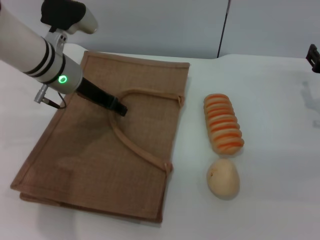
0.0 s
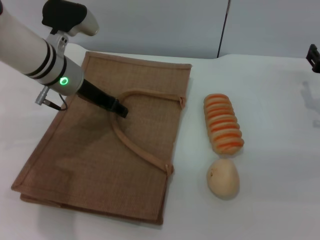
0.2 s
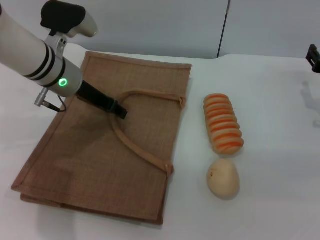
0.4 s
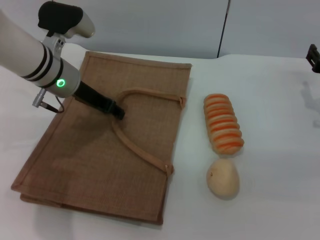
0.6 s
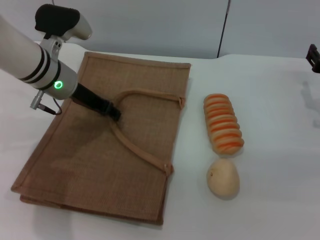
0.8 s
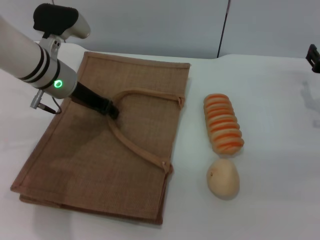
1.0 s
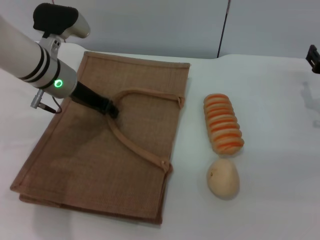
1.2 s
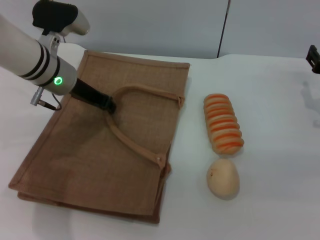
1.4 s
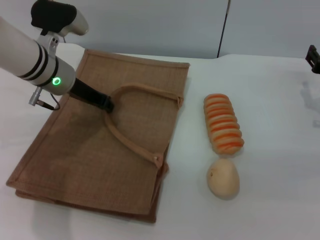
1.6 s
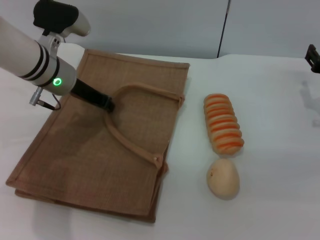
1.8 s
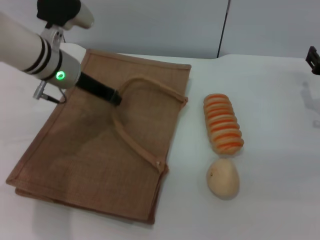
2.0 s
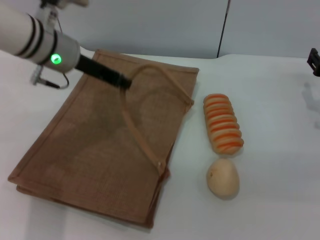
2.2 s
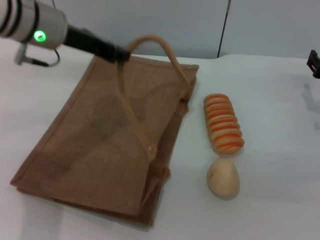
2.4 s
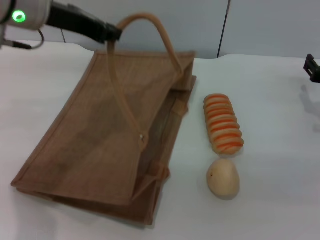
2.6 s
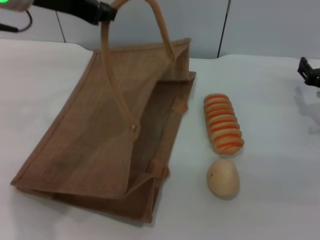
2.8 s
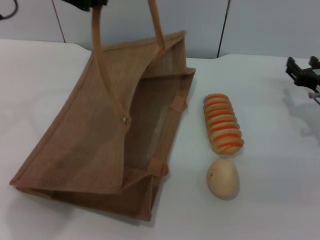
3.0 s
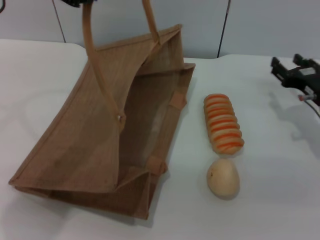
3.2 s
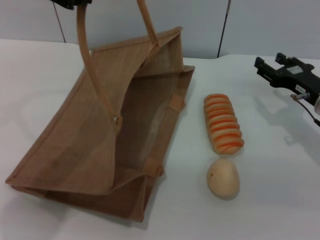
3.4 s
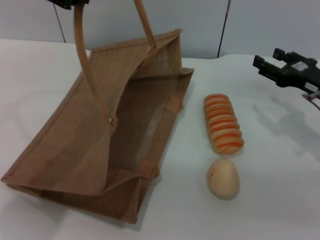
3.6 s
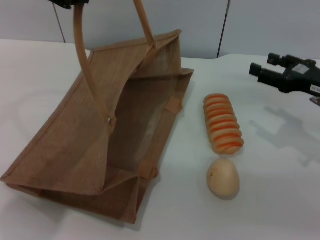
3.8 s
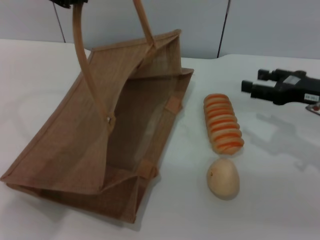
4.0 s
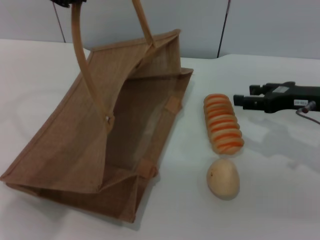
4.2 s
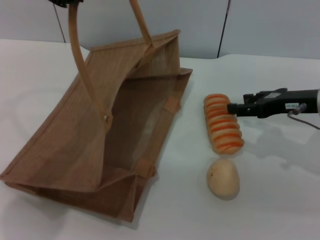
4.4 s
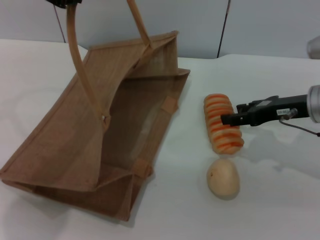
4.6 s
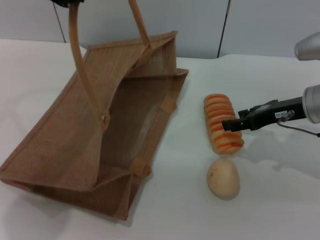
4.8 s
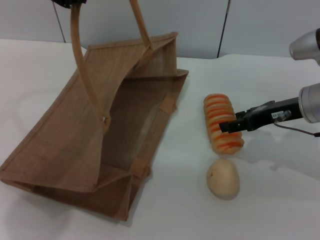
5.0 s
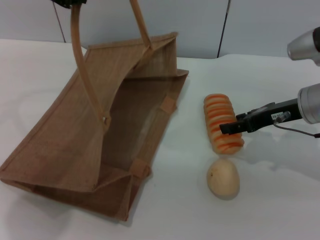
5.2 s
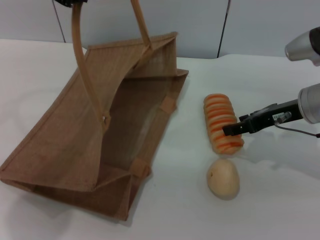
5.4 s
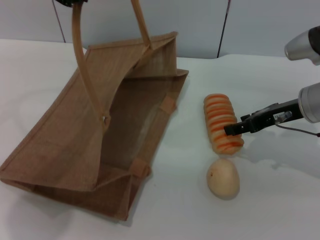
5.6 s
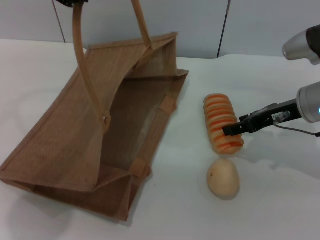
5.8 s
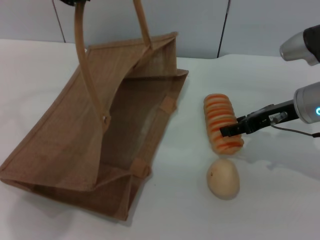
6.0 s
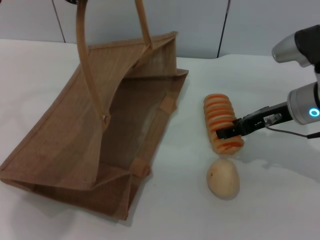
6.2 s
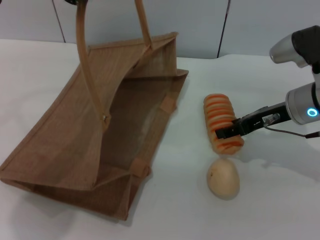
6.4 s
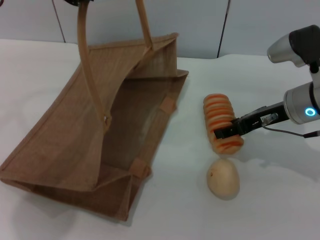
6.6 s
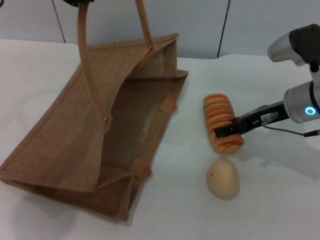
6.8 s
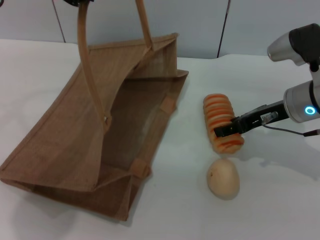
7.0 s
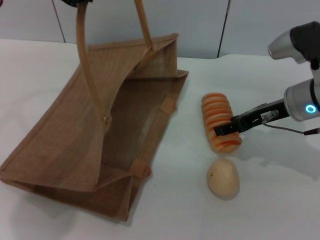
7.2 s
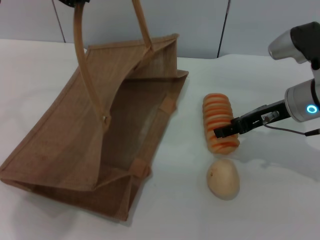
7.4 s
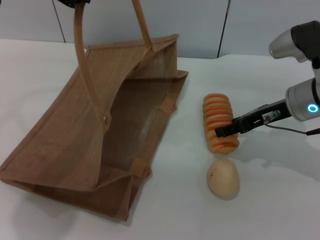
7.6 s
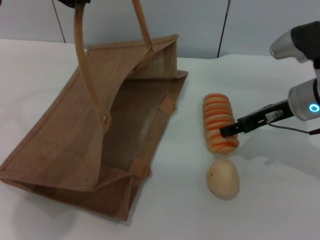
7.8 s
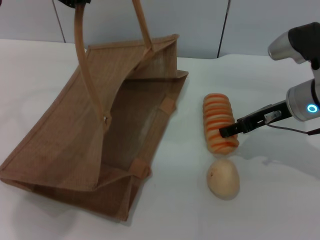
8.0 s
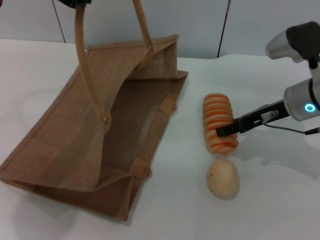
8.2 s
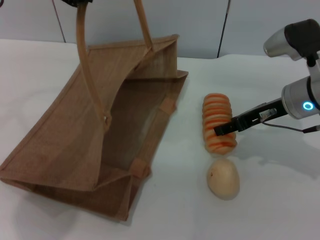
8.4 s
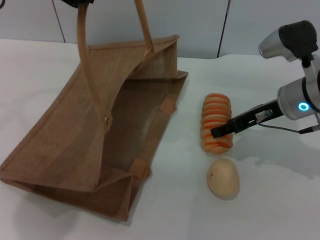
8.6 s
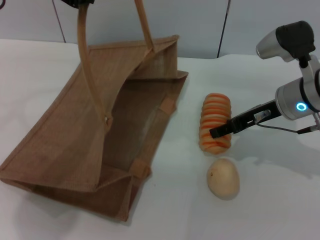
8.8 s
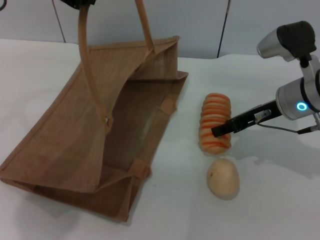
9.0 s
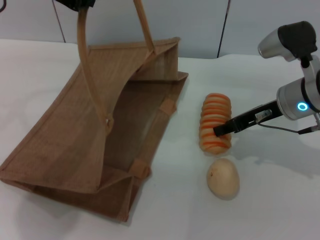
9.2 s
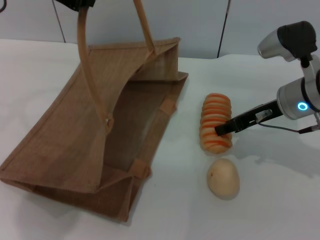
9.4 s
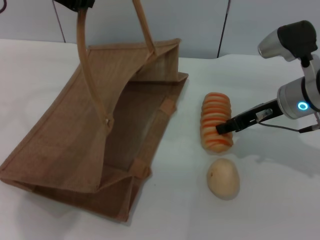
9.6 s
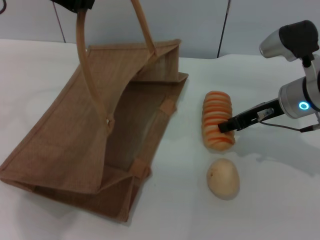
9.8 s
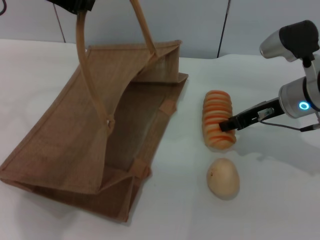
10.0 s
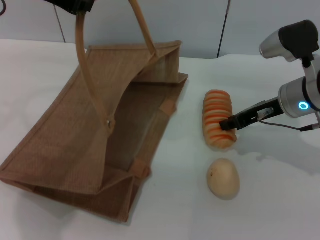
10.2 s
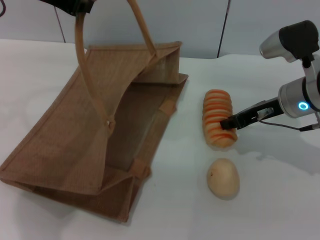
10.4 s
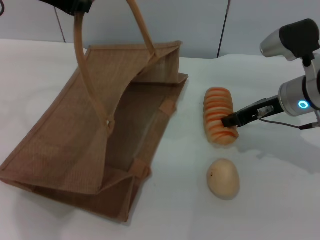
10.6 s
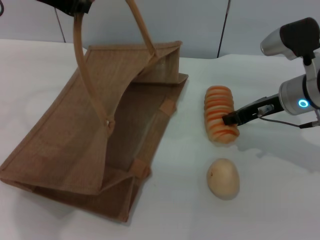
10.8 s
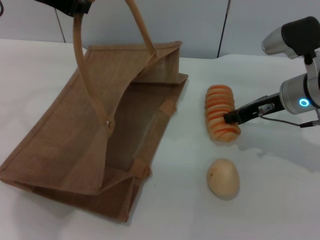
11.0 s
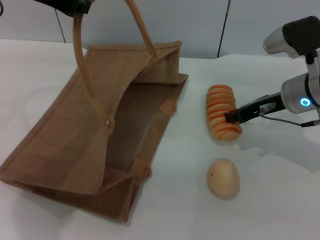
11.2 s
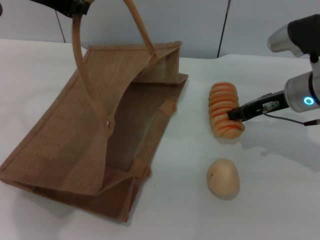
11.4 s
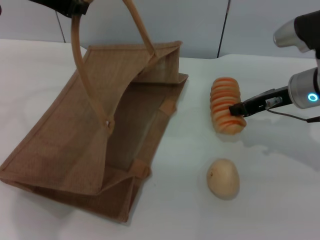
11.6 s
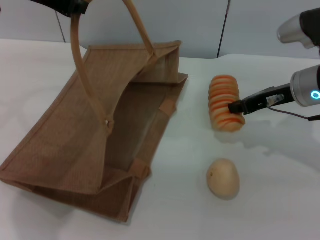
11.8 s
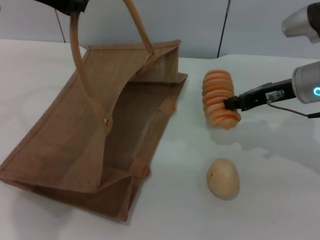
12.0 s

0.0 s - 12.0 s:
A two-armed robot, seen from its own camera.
Task of the whole recording: pick up the bread and egg yolk pastry from the table and place it in the brown handbag.
Step, 0.0 s - 2.4 s: Lift the woven bag with the left gripper to open it.
0.0 s - 1.6 s: The left gripper closes its fingers.
1.6 s - 3.0 s: The left gripper goes about 20 cm upward and backward.
3.0 s - 4.4 s: The right gripper is displaced upward by approximately 5 cm.
4.4 s - 9.0 s: The grippers make only small movements.
9.0 s - 10.4 s: The right gripper closes its fingers.
10.4 s - 12.0 s: The grippers move only a little.

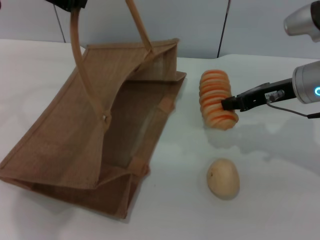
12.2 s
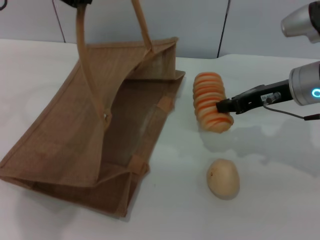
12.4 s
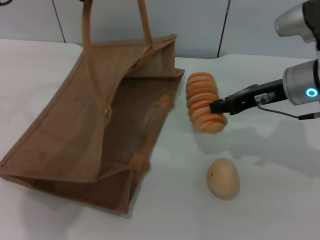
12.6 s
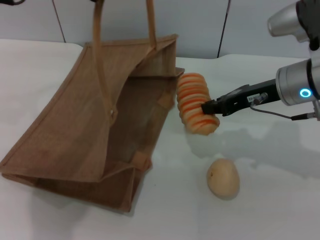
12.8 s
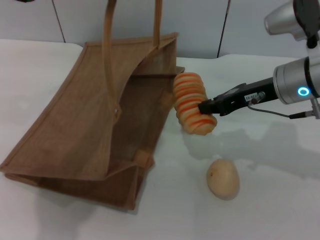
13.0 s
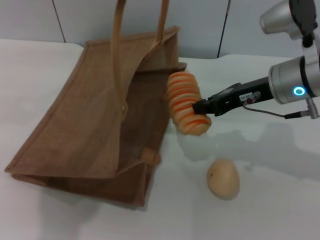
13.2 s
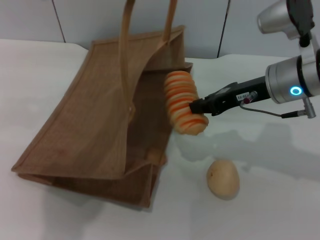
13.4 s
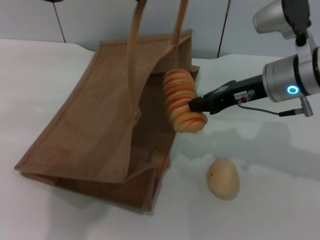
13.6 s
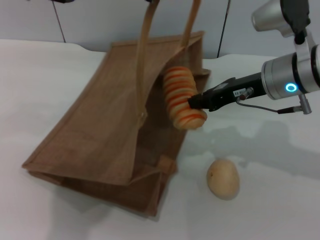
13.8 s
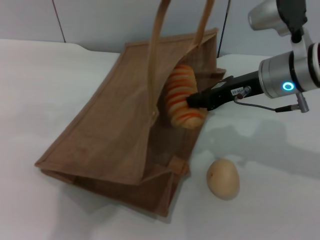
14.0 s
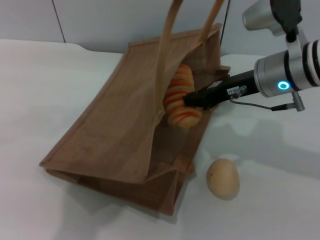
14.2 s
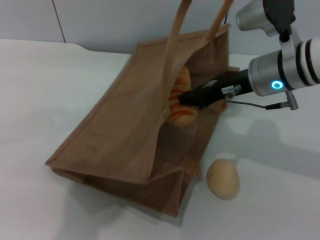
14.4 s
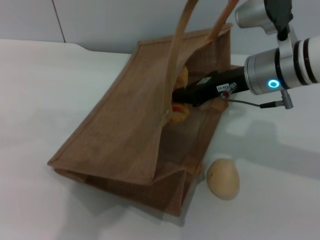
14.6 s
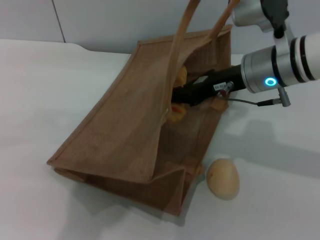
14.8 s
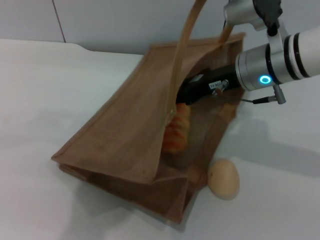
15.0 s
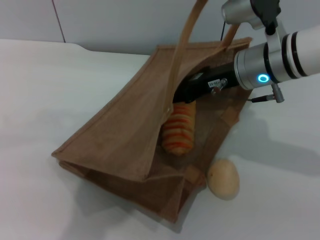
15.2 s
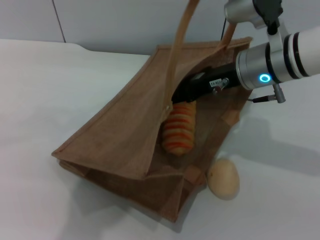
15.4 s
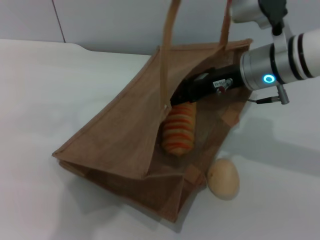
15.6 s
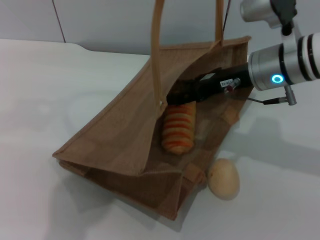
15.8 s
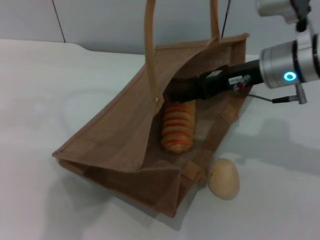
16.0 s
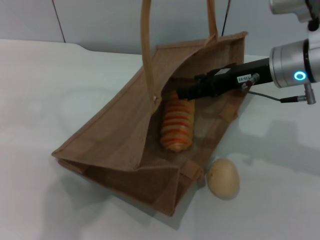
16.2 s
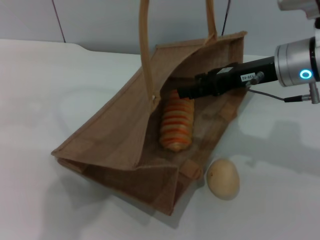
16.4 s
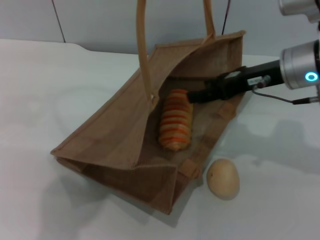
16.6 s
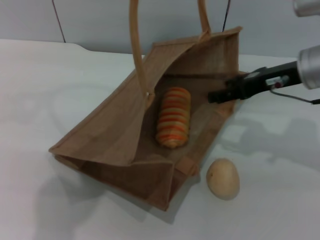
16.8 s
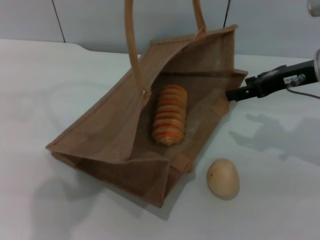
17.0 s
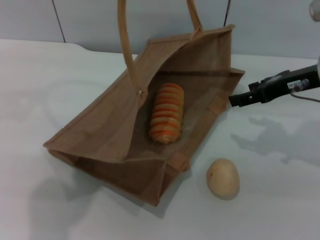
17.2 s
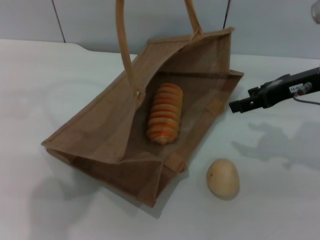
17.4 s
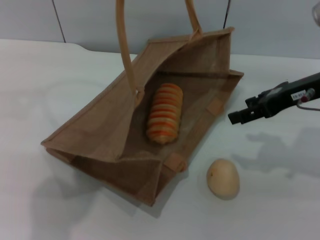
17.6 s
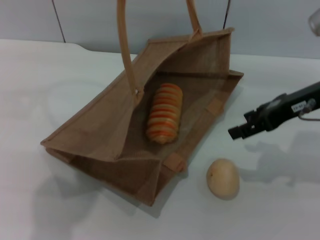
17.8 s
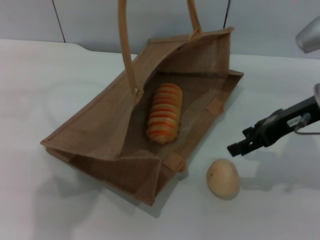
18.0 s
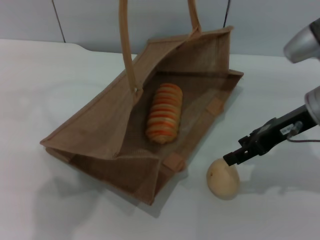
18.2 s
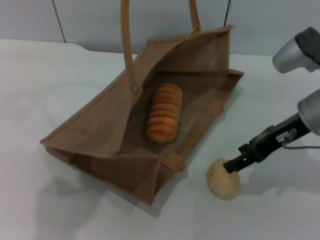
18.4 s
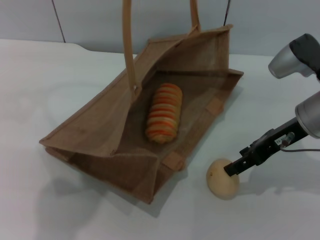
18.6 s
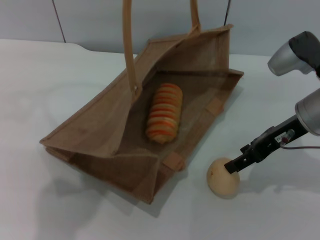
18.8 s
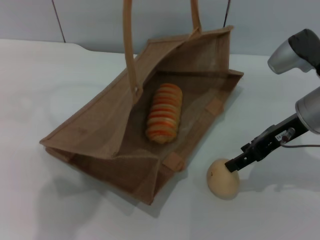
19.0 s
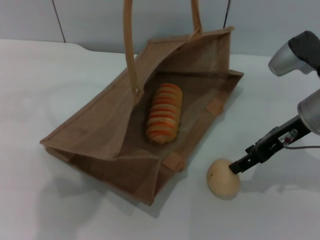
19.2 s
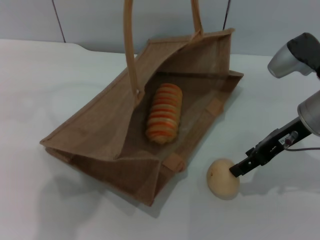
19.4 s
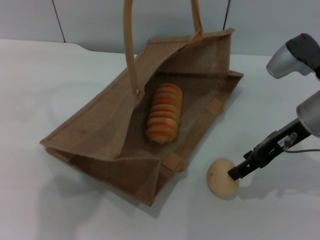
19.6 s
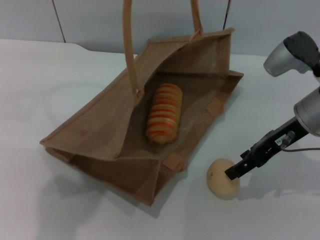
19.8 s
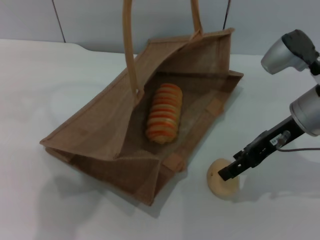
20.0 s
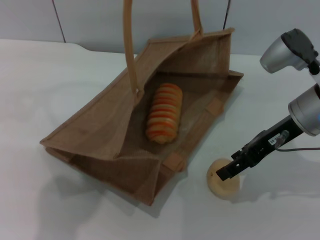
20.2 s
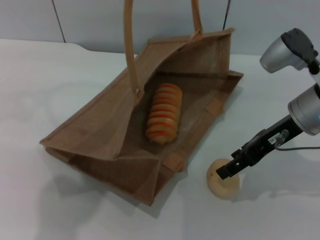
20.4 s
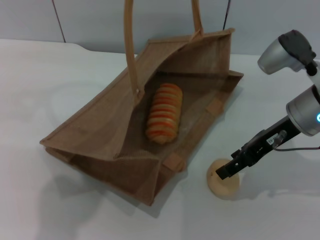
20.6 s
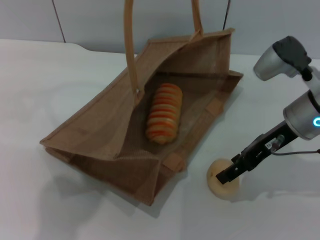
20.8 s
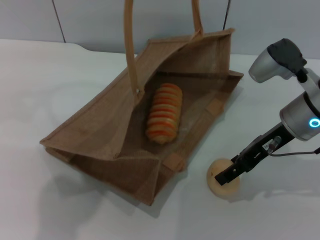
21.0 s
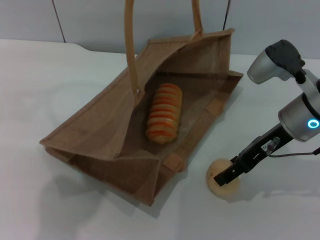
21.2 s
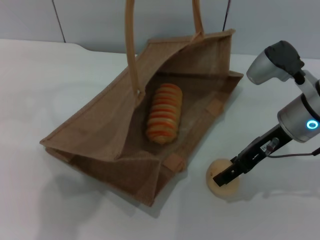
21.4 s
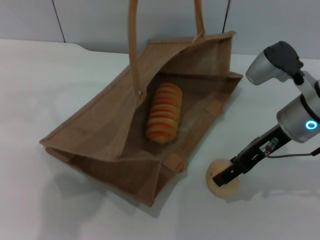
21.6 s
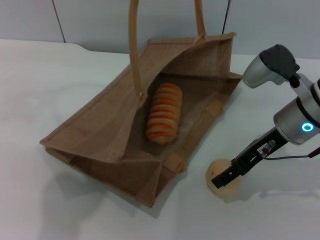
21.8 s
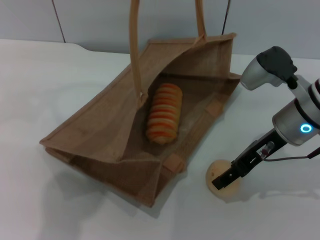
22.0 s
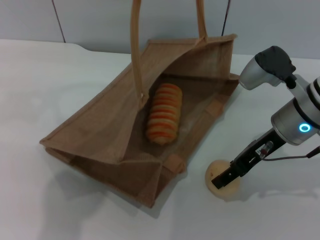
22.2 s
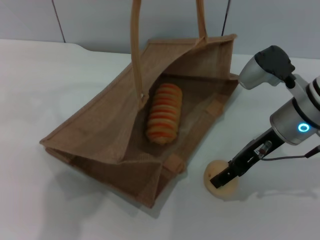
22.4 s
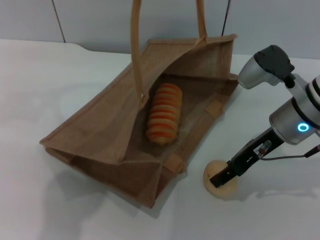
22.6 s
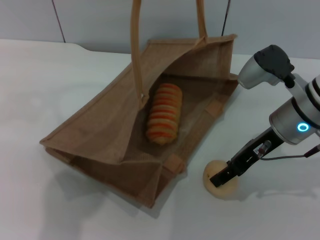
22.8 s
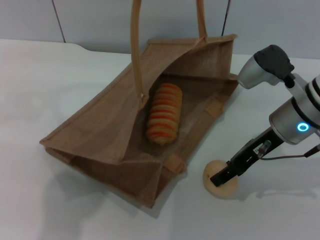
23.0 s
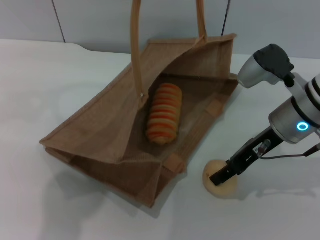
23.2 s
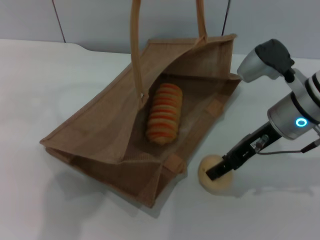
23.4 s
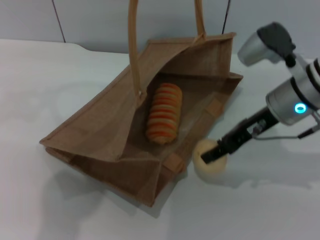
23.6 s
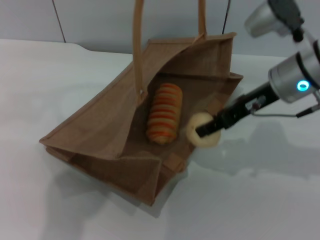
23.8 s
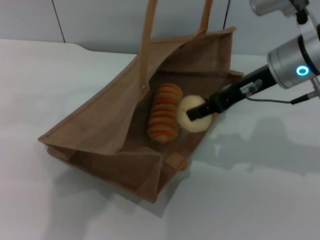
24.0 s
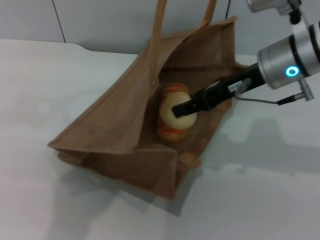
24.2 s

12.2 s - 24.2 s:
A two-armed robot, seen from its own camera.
Task of the whole recording: pick up the bread and egg yolk pastry from the table and place it in the brown handbag.
Step, 12.6 s - 16.8 s: Place the bread into the woven bag with the right gripper.
Step, 17.2 s - 23.6 s: Pick up the egg yolk pastry with the right gripper.
12.2 s - 13.8 s: The left gripper shifts roughly 10 cm to the right.
15.2 s - 16.6 s: The left gripper is displaced to the left by some 5 cm; the right gripper heads to the right, covering about 5 cm, and opens up.
18.2 s - 21.2 s: The grippers make only small movements.
21.2 s - 22.6 s: Both grippers stay put.
22.6 s - 24.2 s: The right gripper is displaced upward by about 5 cm.
